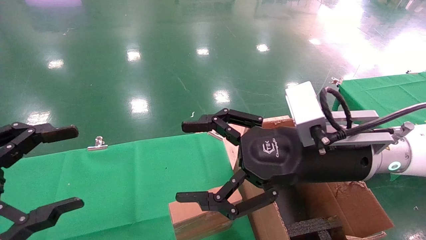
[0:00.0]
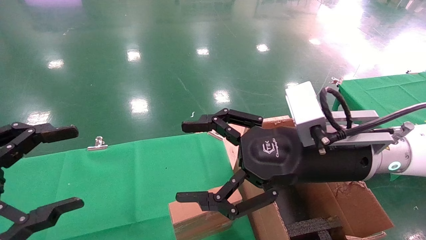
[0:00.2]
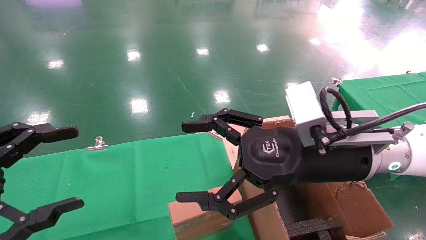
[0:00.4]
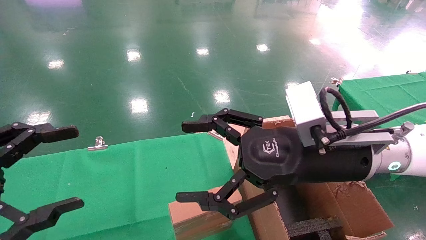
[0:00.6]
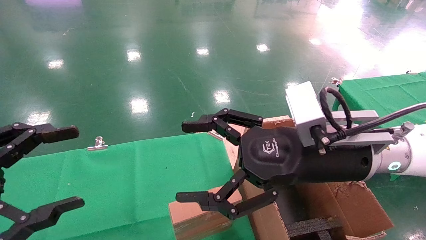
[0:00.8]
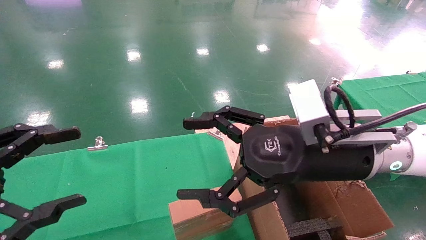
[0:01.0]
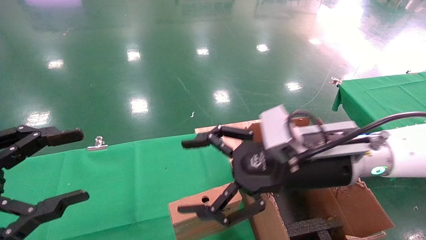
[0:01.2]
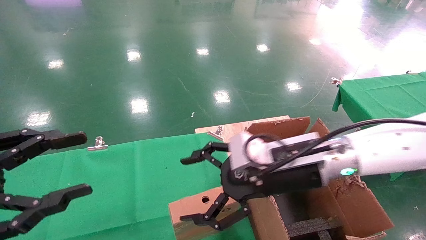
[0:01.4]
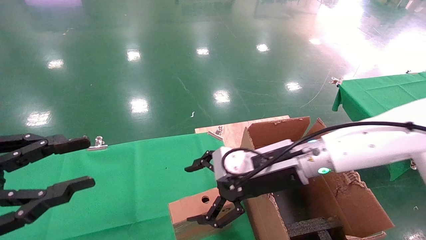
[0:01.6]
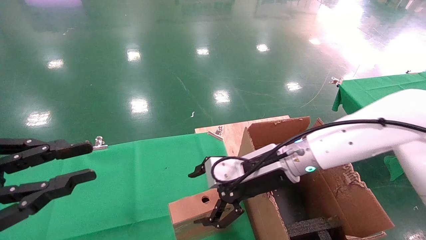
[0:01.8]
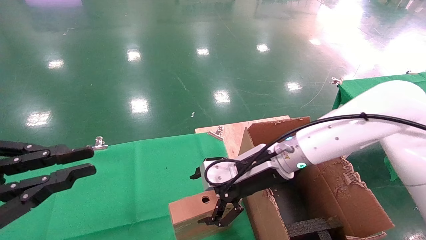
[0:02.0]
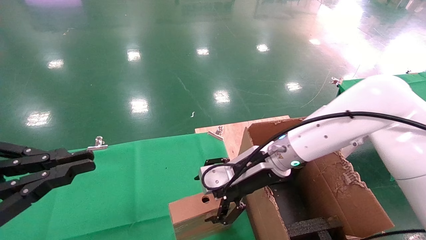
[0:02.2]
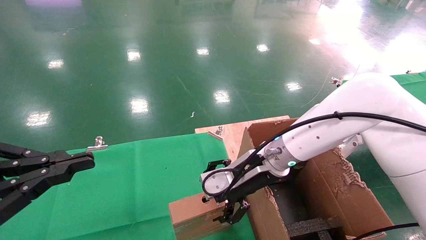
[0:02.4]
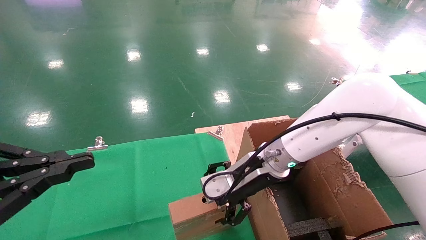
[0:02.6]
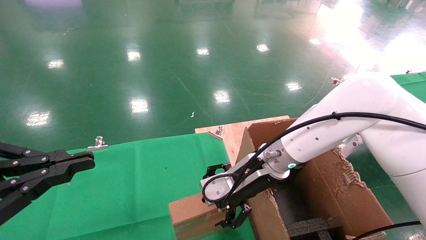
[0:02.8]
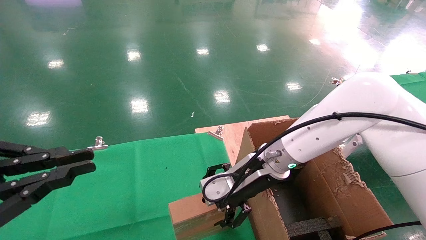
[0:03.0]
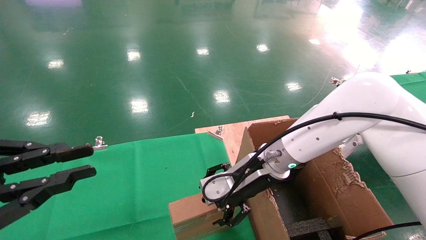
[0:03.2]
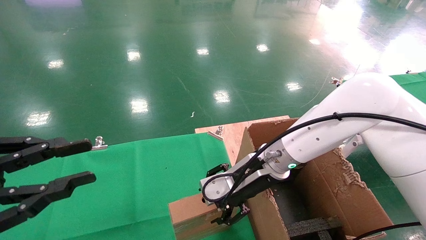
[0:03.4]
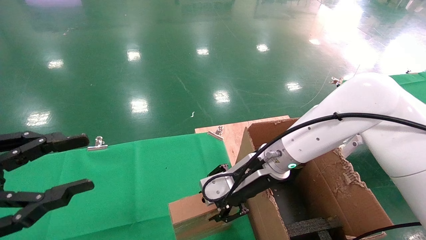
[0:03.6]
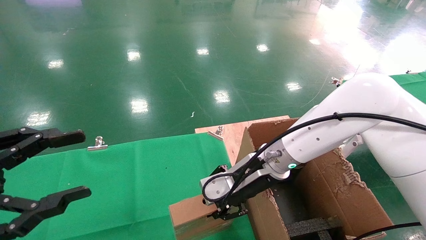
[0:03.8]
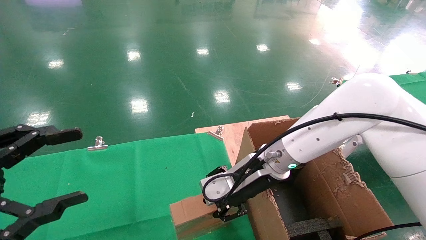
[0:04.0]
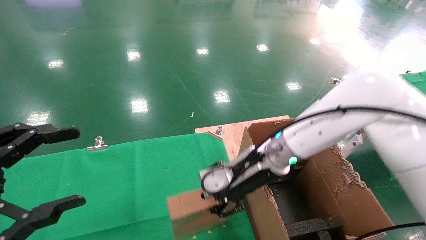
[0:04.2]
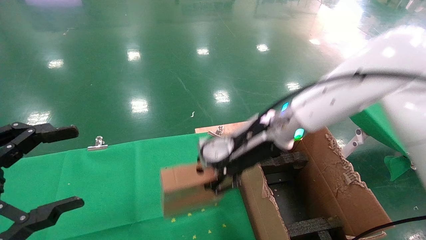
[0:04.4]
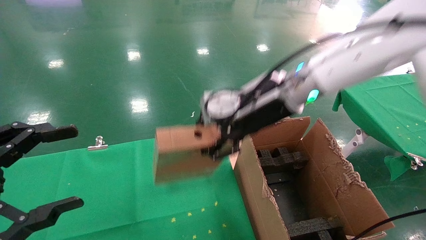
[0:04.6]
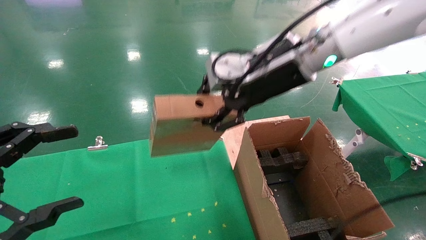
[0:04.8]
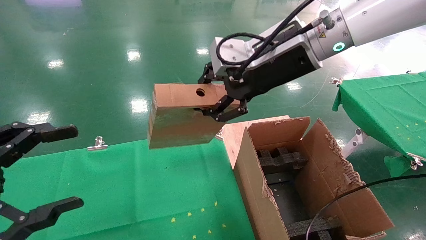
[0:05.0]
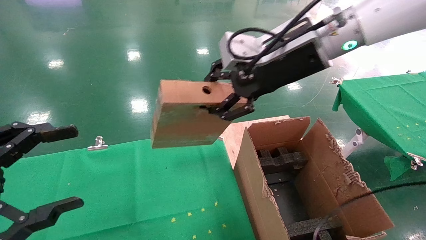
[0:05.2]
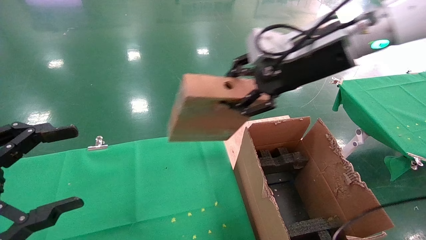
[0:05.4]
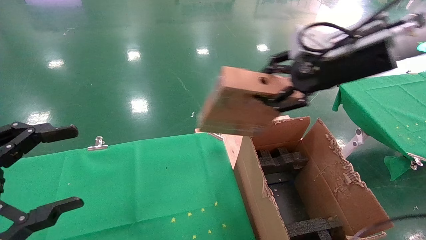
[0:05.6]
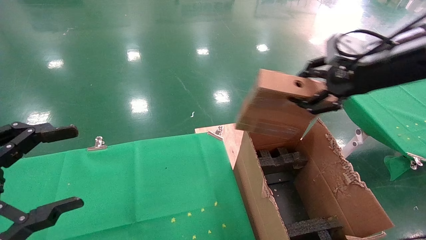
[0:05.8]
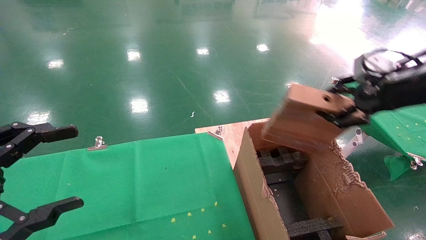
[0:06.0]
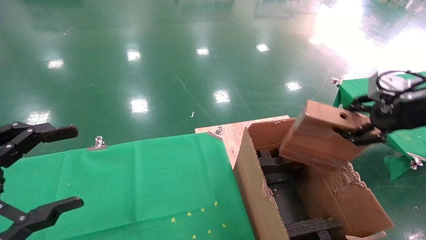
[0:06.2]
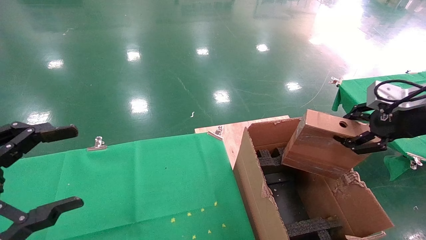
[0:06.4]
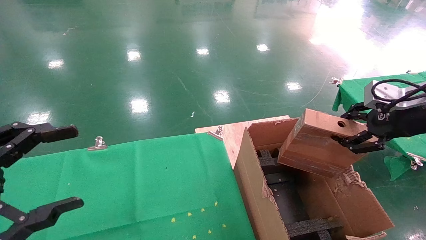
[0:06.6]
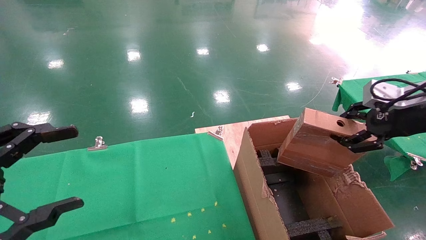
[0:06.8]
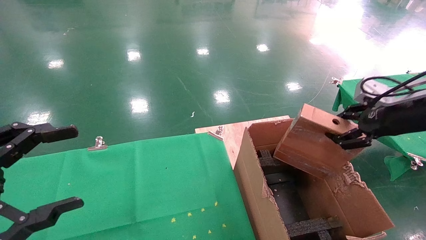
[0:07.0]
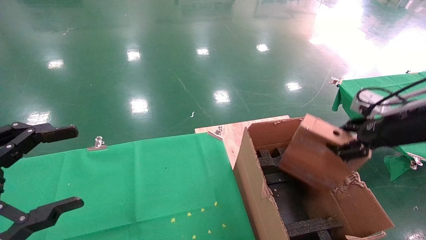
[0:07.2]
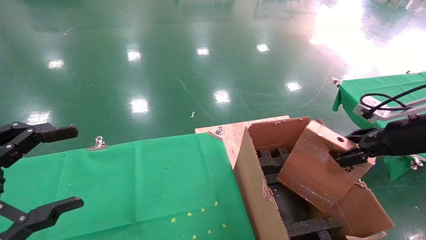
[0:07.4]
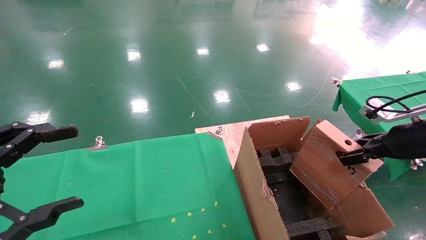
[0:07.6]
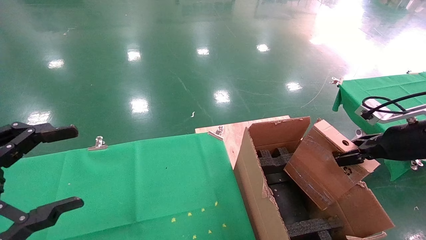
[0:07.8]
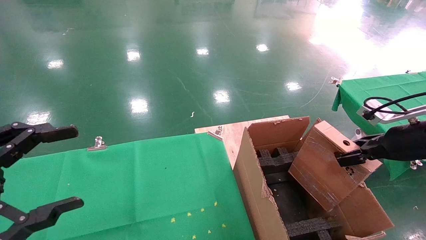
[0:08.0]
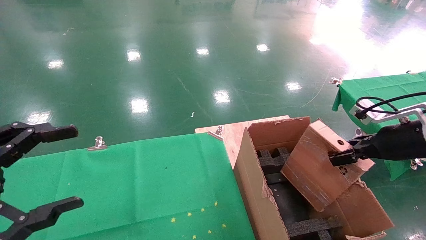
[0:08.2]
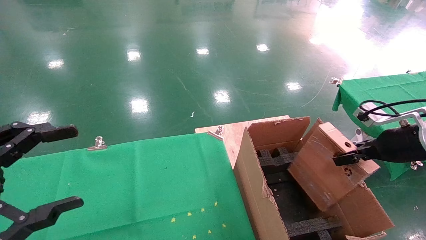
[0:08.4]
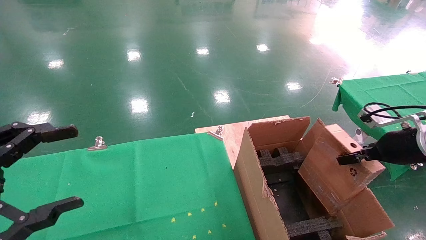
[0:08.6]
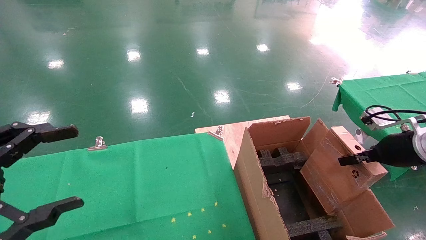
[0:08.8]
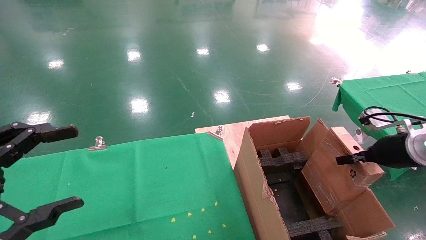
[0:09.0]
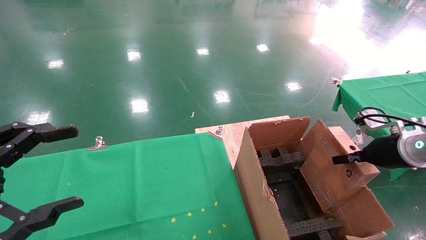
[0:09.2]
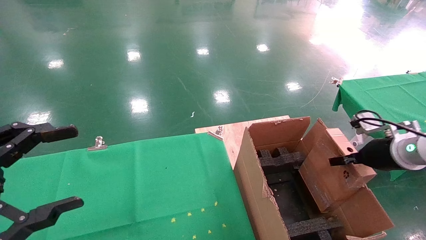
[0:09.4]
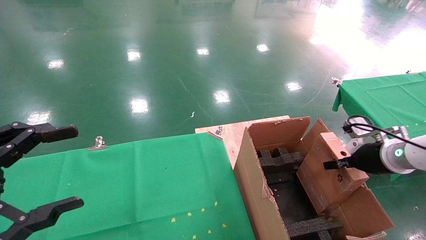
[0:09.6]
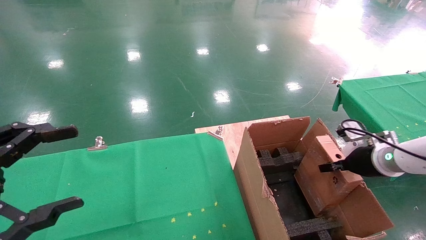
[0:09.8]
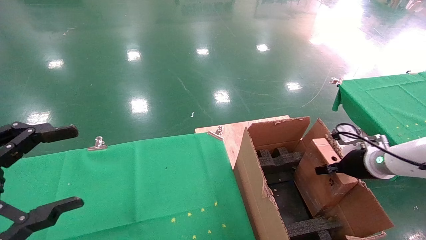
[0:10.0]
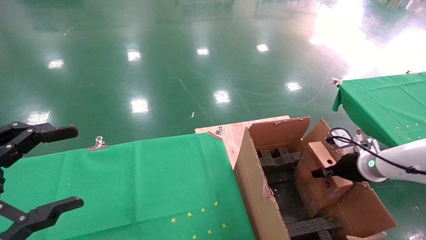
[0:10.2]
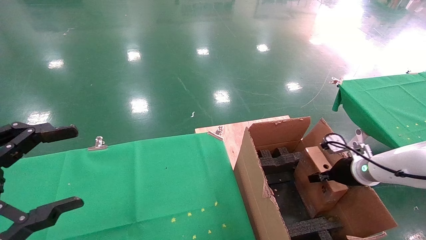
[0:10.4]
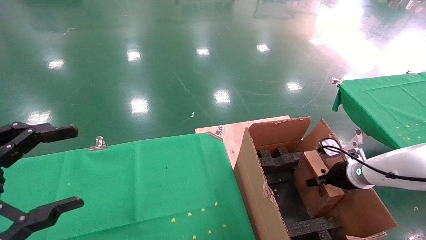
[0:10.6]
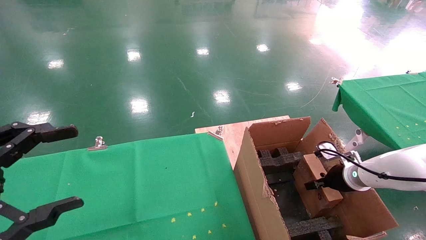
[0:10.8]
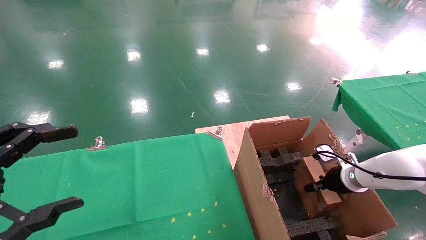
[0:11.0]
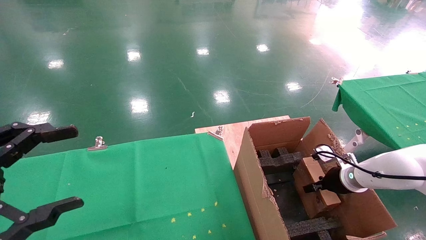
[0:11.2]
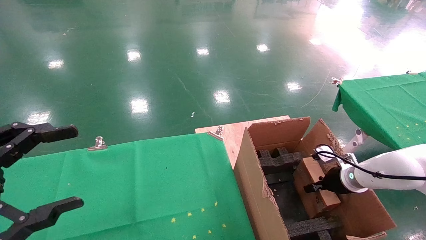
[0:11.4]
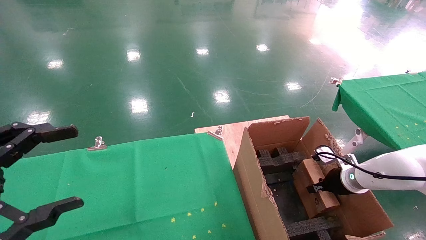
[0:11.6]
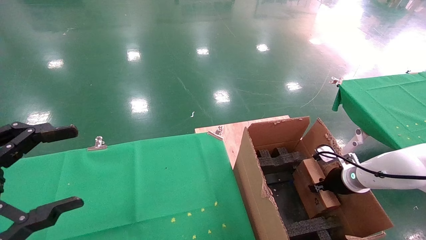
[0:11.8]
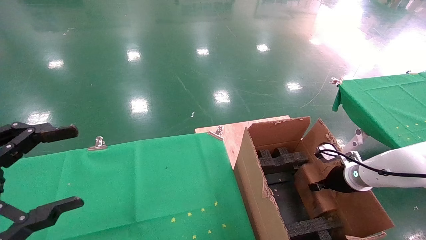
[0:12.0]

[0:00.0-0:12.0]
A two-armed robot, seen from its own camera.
Task of the whole recording: using a robotic arm to pick up a cardboard box and palace it the carton.
Step, 0:01.2 to 0:03.8: Pick up the mouse and the power cord paper box.
0:00.0 to 0:01.6: The left gripper closes; the right gripper travels forward and downward by some 10 cm.
0:01.6 to 0:03.0: The left gripper closes up.
0:03.0 to 0:04.4: The right gripper moves upward, some 10 cm, and closes up; the left gripper opens up.
0:04.4 to 0:06.0: The right gripper travels to the right by about 25 cm.
0:06.0 to 0:07.6: The right gripper heads downward, covering some 10 cm.
0:07.6 to 0:09.0: The right gripper moves roughly 5 cm.
0:09.0 to 0:10.4: The right gripper shifts about 10 cm downward and forward.
0:10.4 to 0:12.0: The right gripper opens its fingers.

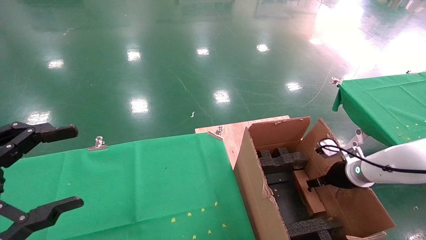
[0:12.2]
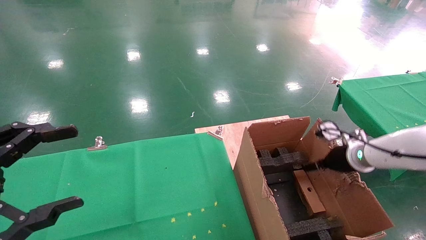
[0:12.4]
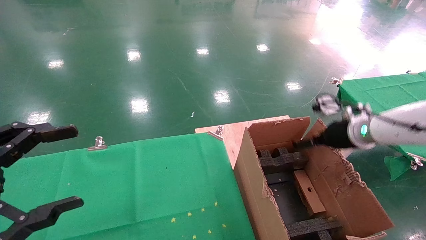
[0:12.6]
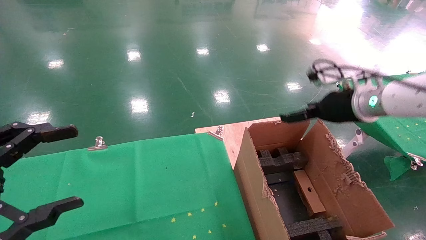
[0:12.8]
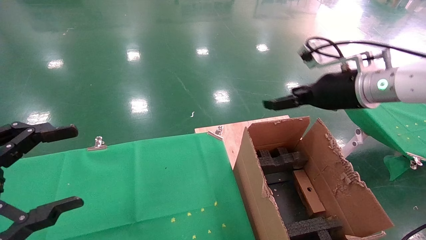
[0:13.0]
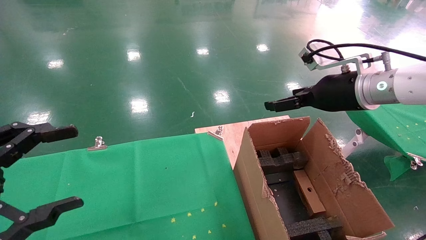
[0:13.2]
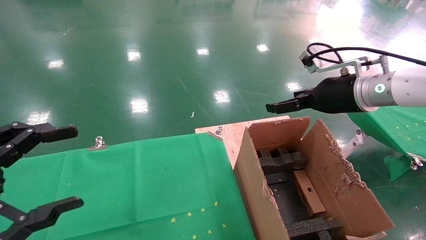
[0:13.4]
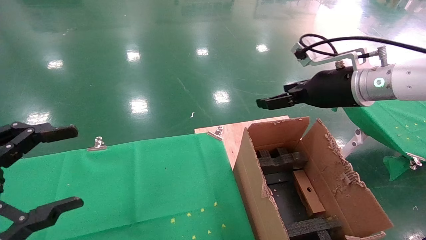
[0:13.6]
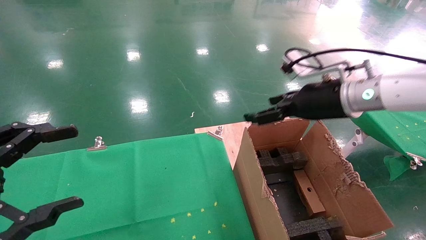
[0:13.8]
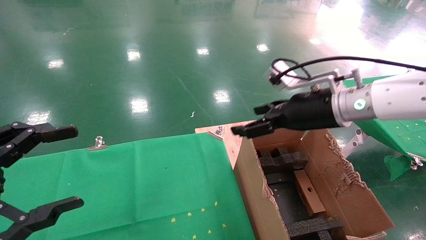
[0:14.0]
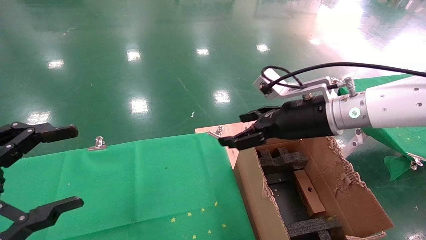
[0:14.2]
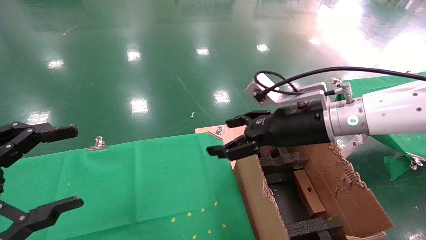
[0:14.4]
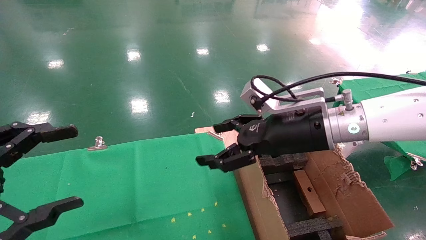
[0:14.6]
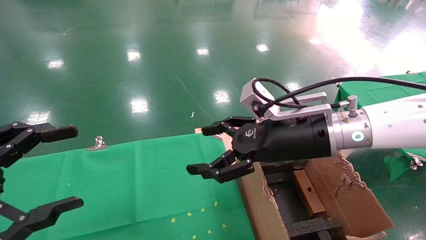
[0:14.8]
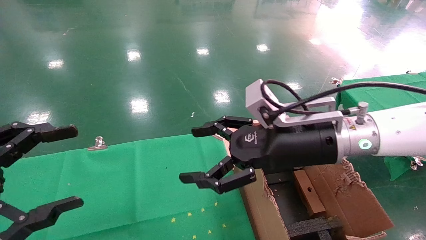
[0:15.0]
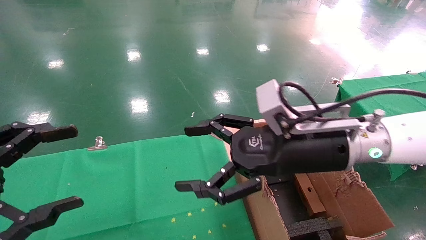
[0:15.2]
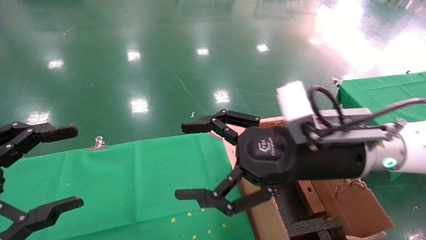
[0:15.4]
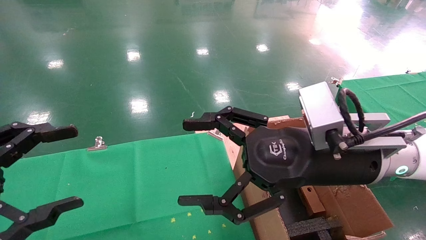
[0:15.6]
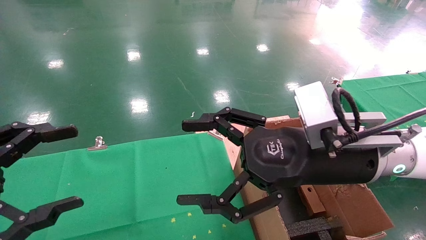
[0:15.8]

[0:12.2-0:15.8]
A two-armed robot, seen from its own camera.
Task of the whole recording: using a robotic arm to pick up a cardboard box and palace it the carton.
0:12.2 to 0:14.0: The right gripper is displaced upward and to the left by about 25 cm, and opens.
0:14.0 to 0:15.8: The right gripper travels backward and to the left by roughly 10 cm.
